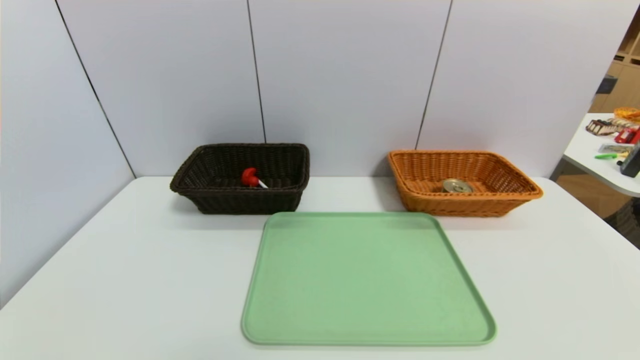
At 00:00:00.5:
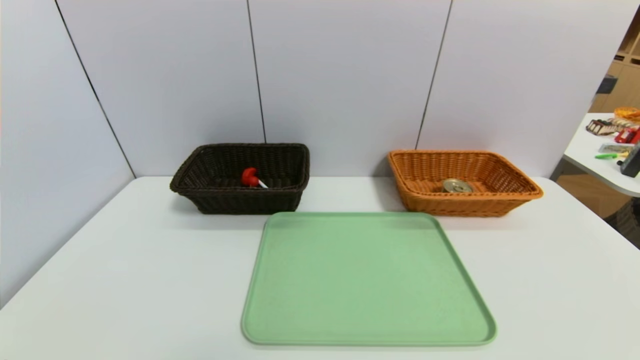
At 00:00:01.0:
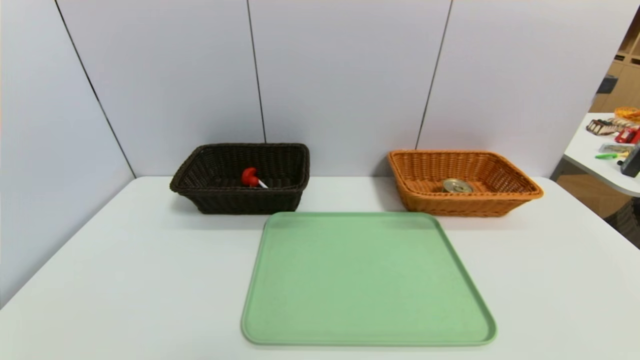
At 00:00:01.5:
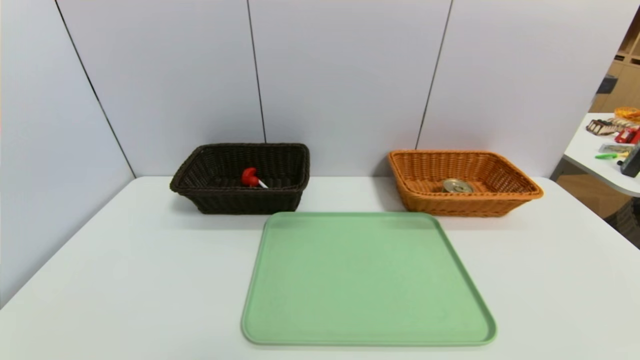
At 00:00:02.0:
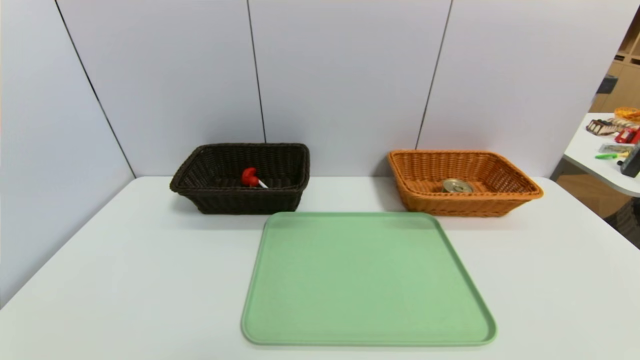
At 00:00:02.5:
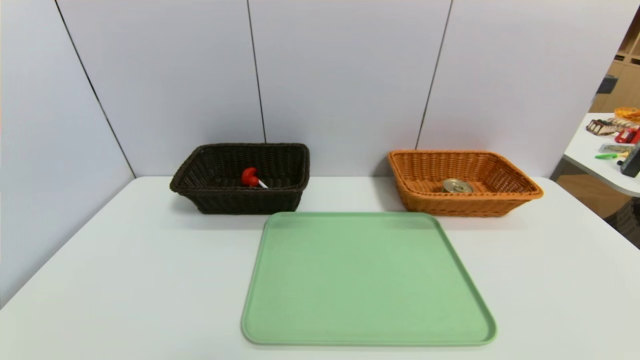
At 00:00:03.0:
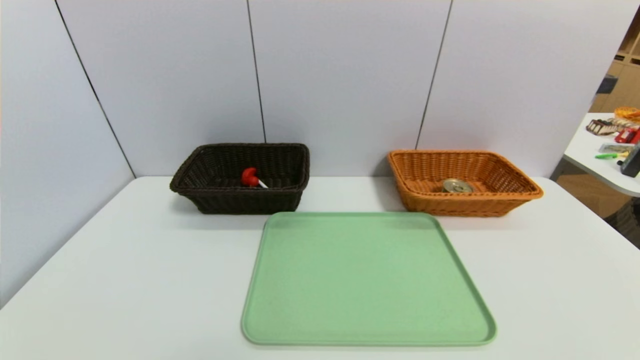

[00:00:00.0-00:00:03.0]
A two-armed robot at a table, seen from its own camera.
Task of the whole recording: place the food in the right basket with the right gripper, and place the non food items in the left basket with the left gripper.
00:00:01.5 to 00:00:03.0: Both grippers stay put.

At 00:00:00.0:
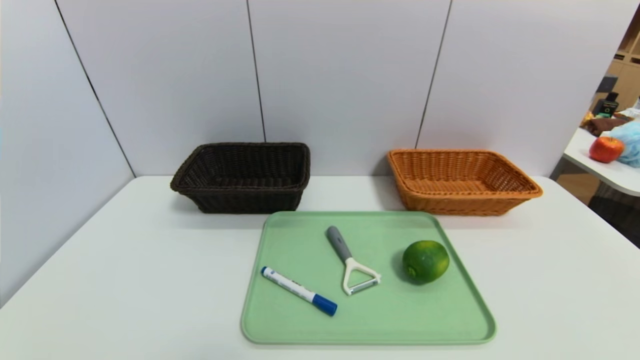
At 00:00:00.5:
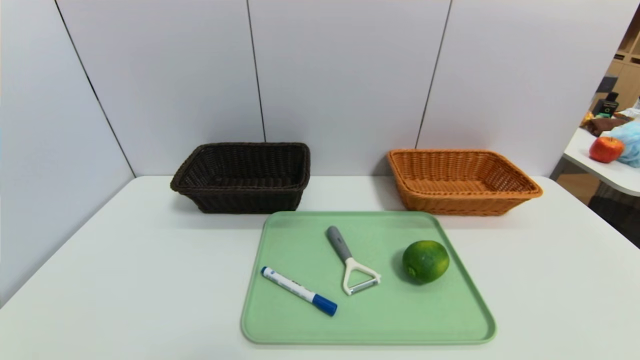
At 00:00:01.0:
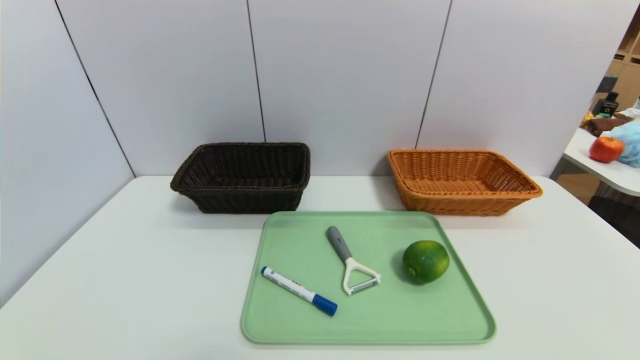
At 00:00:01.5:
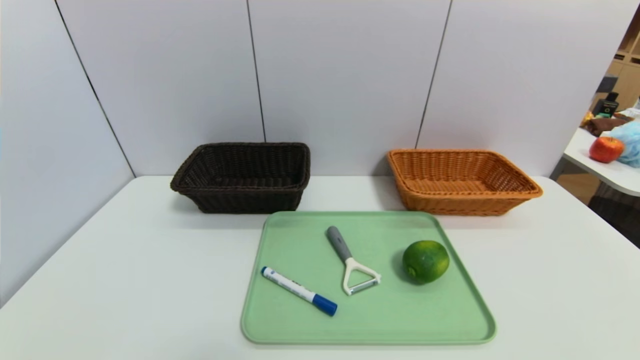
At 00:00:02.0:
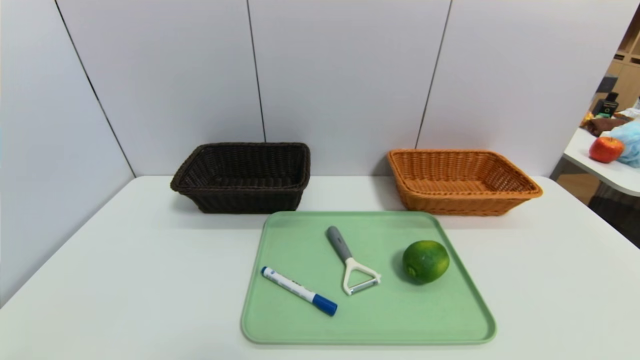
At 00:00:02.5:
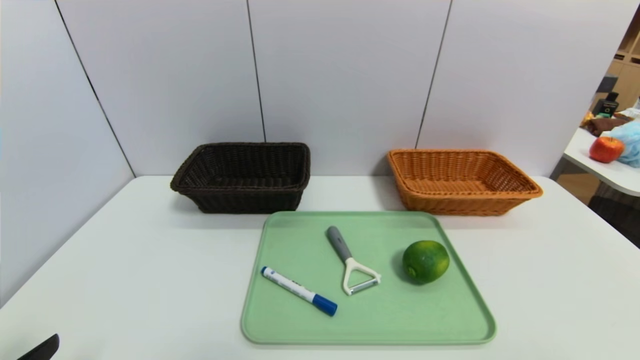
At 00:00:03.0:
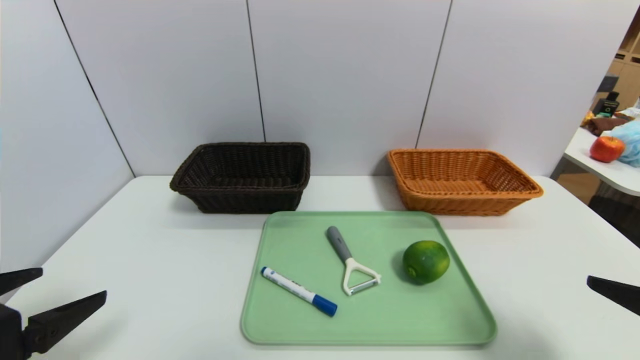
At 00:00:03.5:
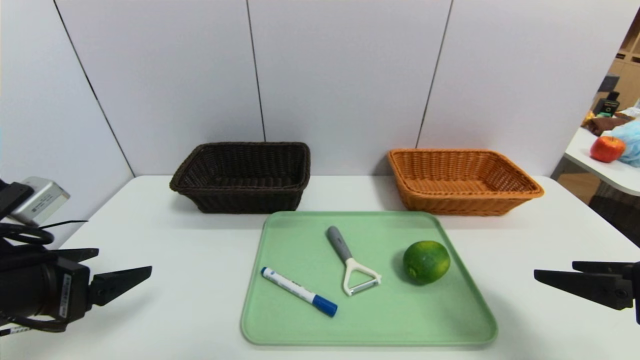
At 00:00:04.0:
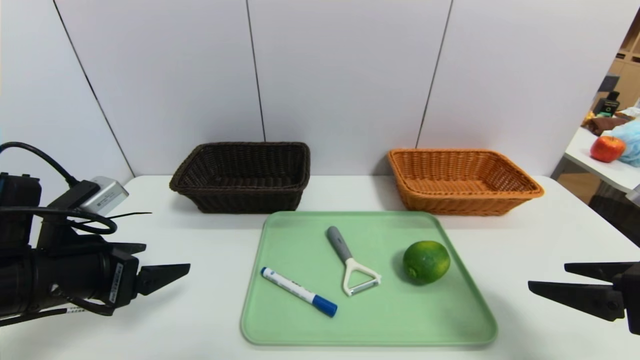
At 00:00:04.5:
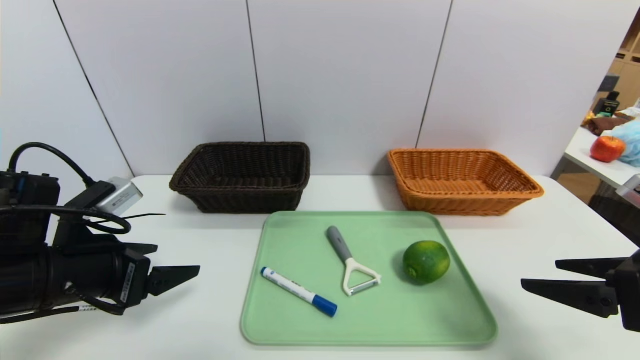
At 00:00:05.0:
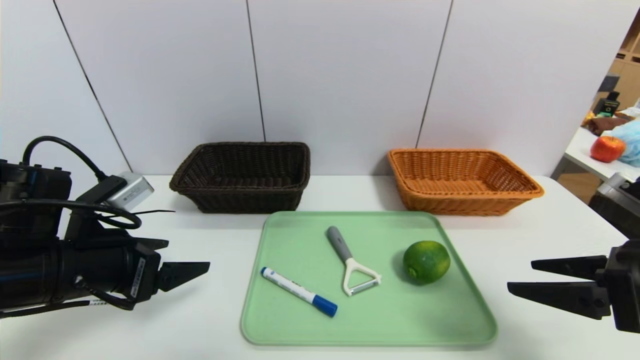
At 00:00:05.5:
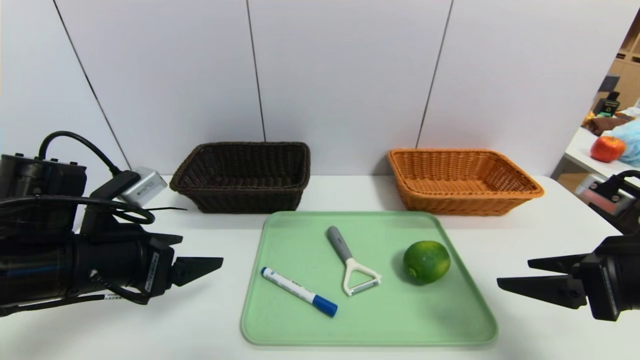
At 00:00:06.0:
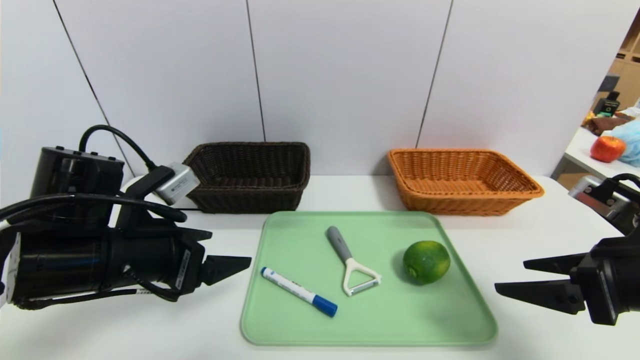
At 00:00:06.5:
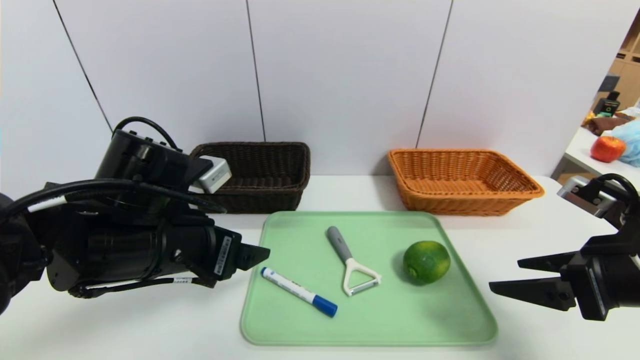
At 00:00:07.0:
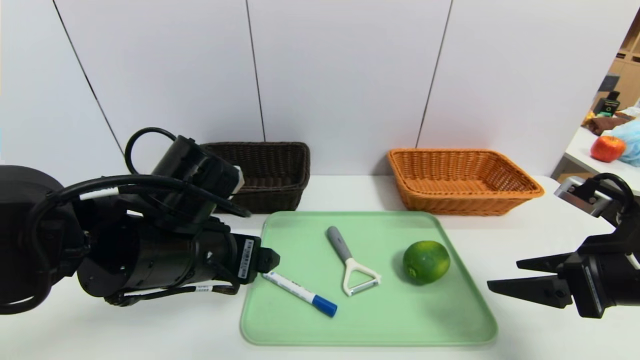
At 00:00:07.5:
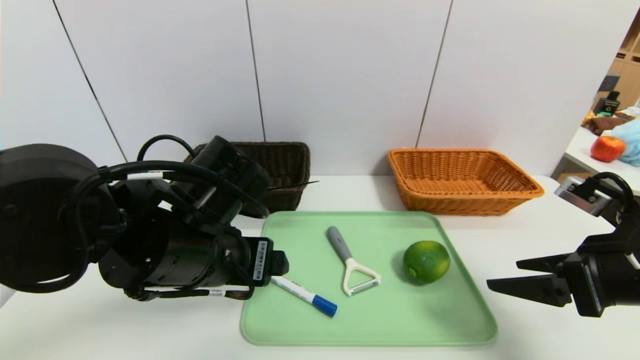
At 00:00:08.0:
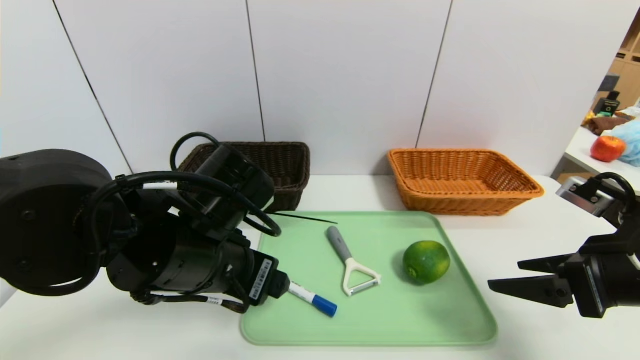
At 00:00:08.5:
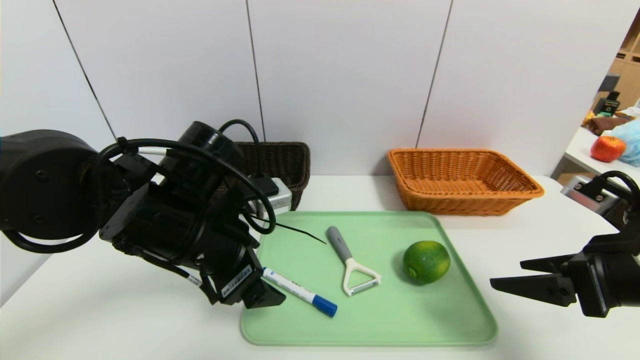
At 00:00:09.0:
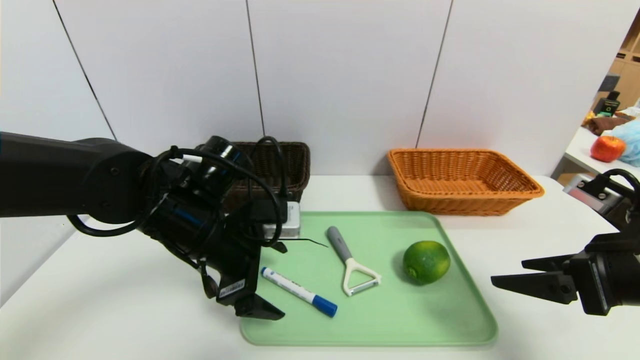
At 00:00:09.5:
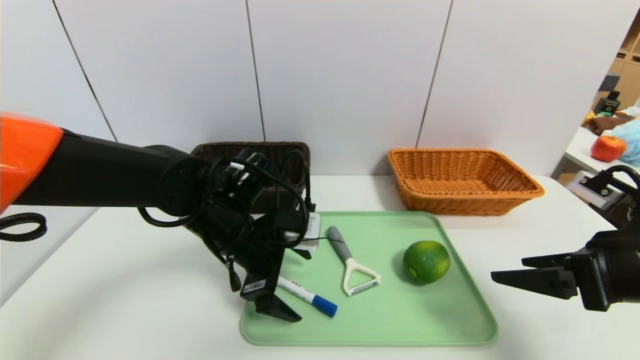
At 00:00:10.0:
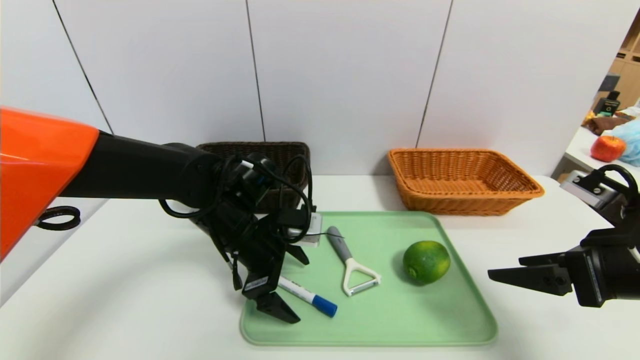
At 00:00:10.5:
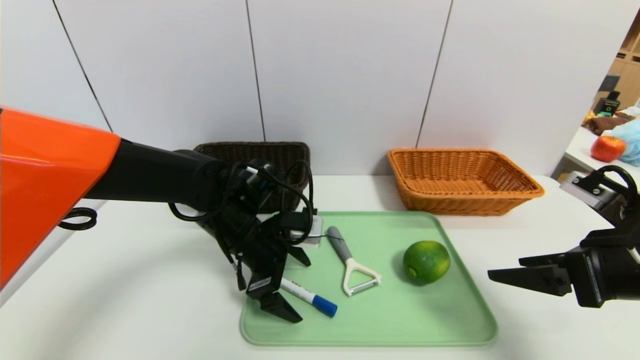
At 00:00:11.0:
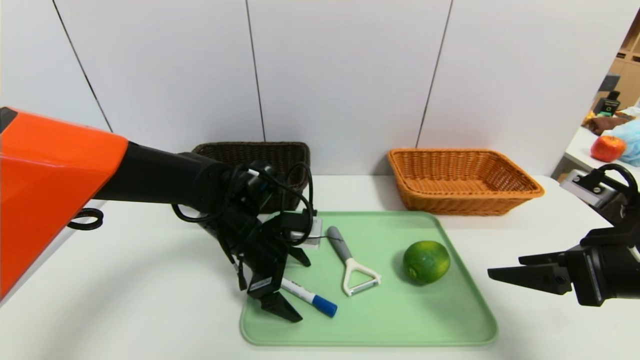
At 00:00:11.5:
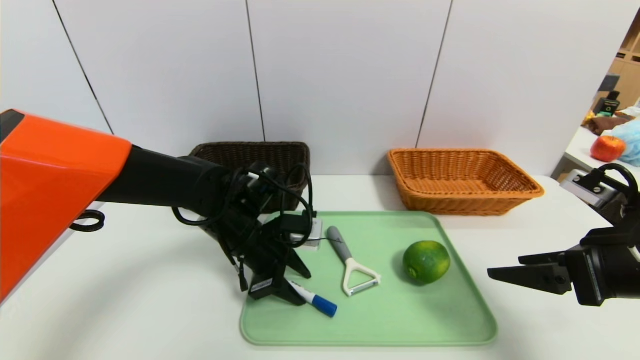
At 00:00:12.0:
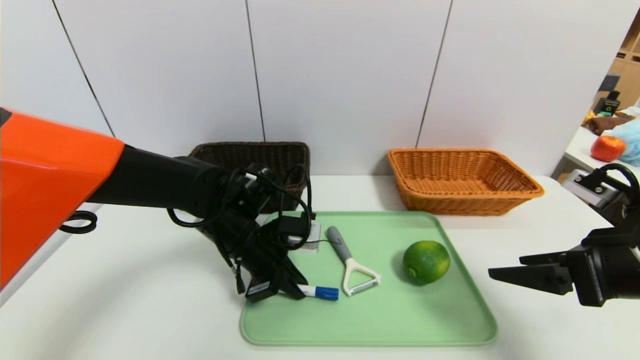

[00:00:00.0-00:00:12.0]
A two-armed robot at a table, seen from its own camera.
Task of the whole recording: place the food in the right basket with the right gripper, and place the non food items in the left basket with the left gripper.
00:00:02.0 to 00:00:04.0: The grippers both shift forward by some 20 cm.
00:00:04.0 to 00:00:06.0: The left gripper moves to the right, about 5 cm.
00:00:06.0 to 00:00:08.0: The left gripper is displaced to the right by about 10 cm.
00:00:08.0 to 00:00:10.0: The left gripper heads forward and downward, covering some 10 cm.
00:00:10.0 to 00:00:12.0: The left gripper closes its fingers.

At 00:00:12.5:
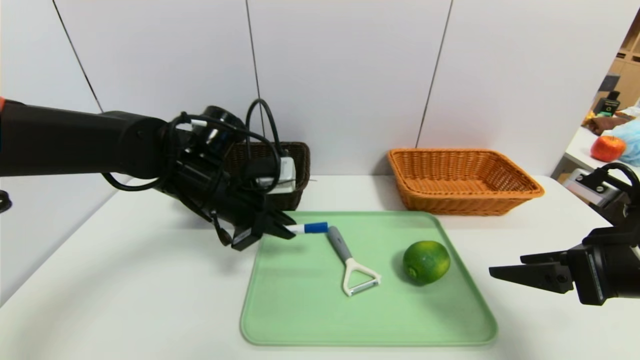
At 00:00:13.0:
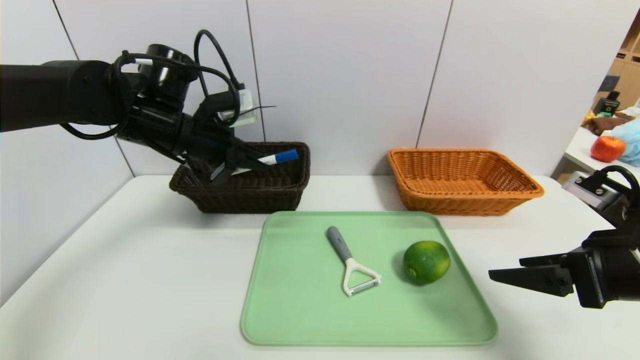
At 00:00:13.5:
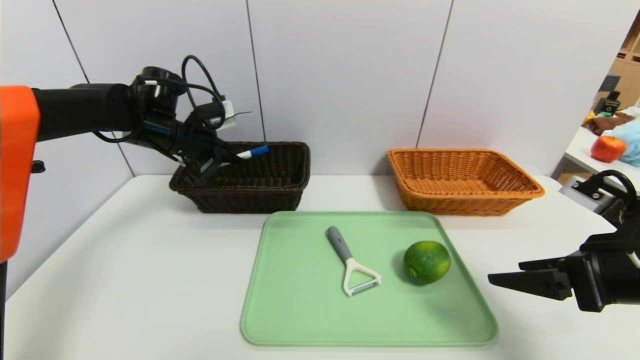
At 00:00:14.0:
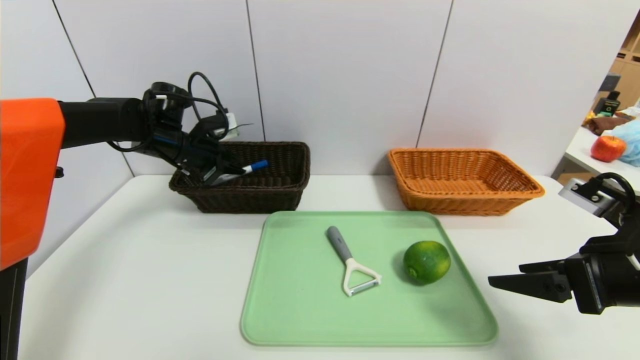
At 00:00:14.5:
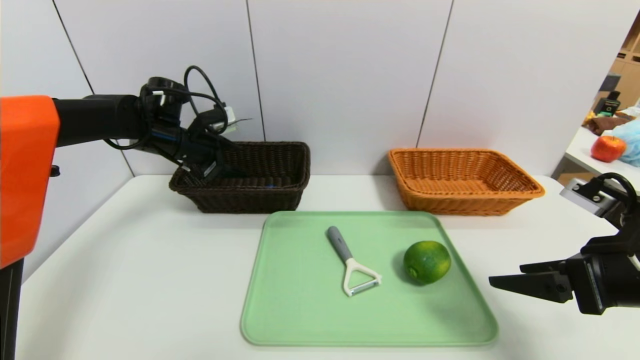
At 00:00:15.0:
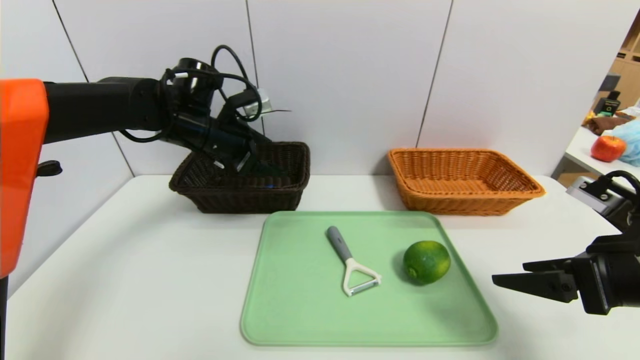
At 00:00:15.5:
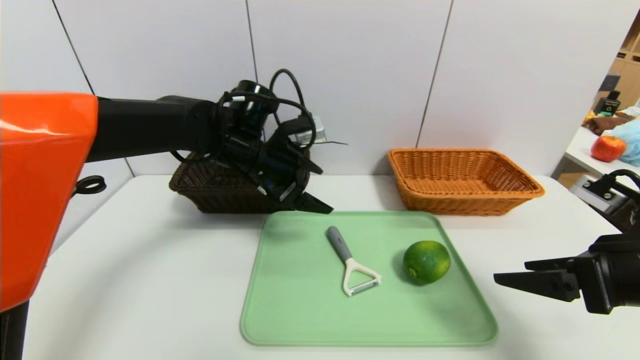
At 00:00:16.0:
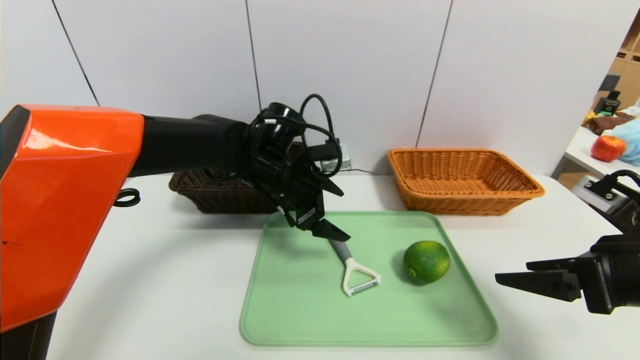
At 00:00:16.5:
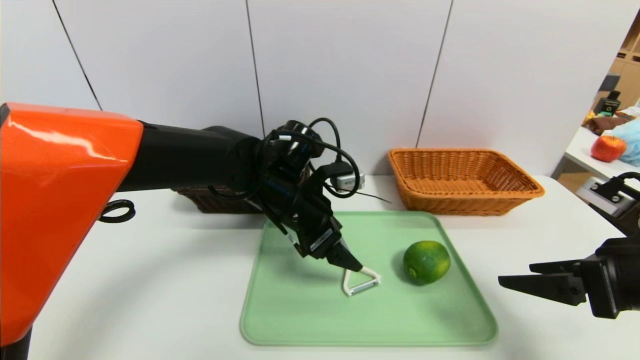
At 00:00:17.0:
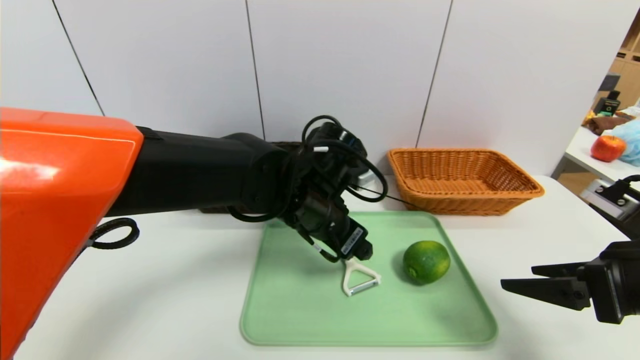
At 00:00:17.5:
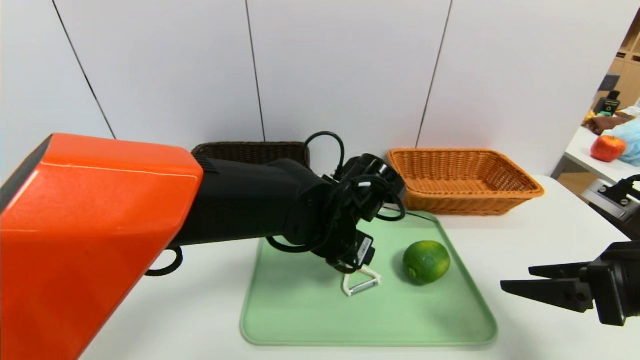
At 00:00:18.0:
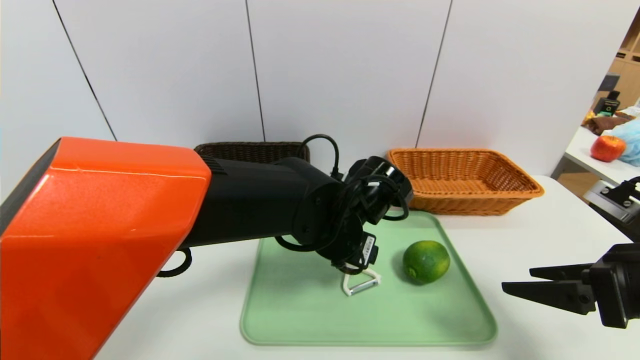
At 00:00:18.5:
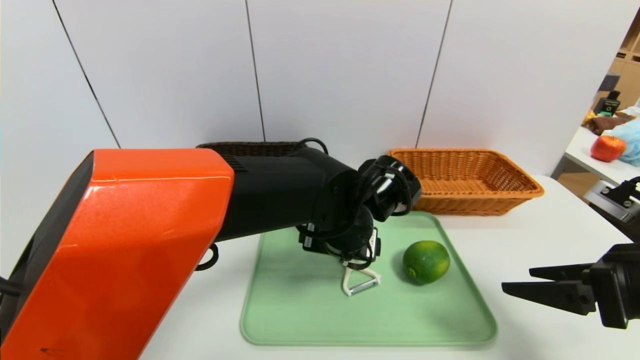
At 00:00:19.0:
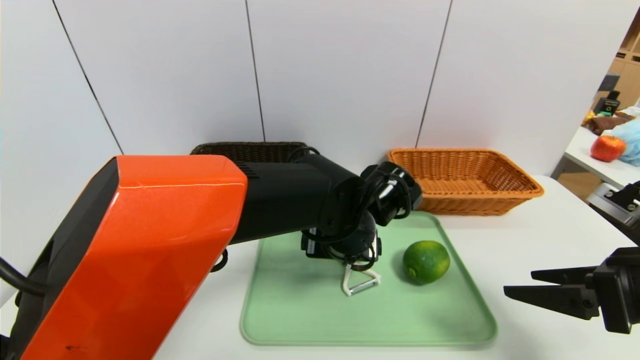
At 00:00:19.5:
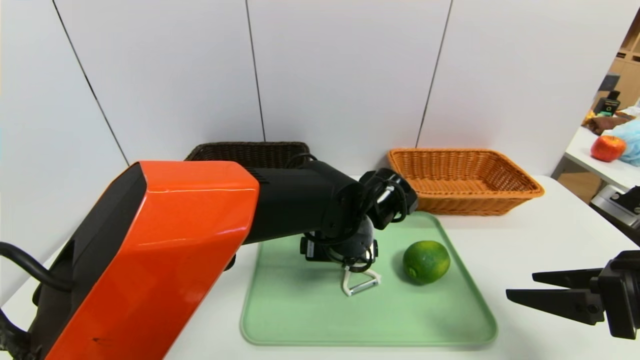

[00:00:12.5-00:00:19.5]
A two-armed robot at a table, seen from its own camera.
Task of the whole recording: place the food in the right basket with the right gripper, and place the non food items in the left basket with the left gripper.
00:00:12.5 to 00:00:14.5: The left gripper moves forward and to the left, about 15 cm, and opens.
00:00:14.5 to 00:00:16.0: The left gripper shifts about 20 cm to the right and backward.
00:00:16.0 to 00:00:17.5: The left gripper heads backward and to the right, covering roughly 10 cm.
